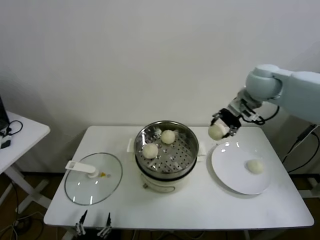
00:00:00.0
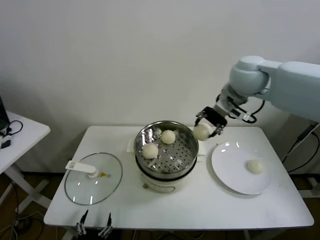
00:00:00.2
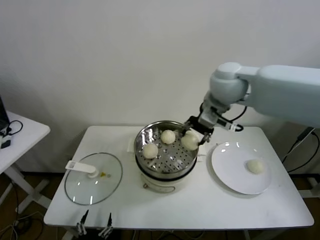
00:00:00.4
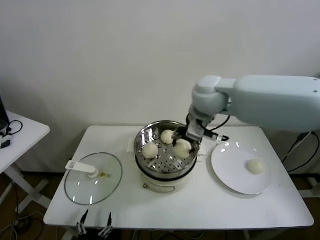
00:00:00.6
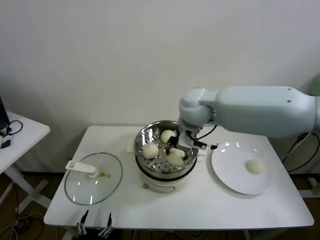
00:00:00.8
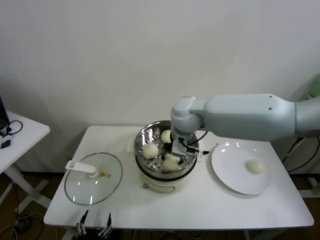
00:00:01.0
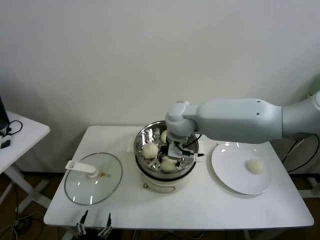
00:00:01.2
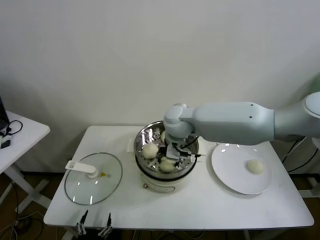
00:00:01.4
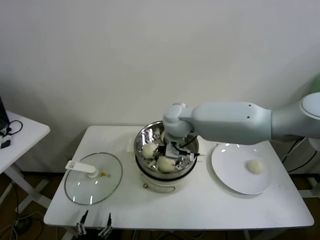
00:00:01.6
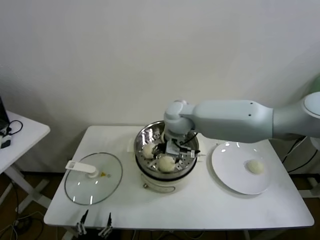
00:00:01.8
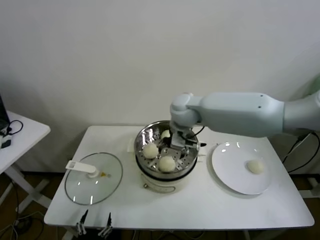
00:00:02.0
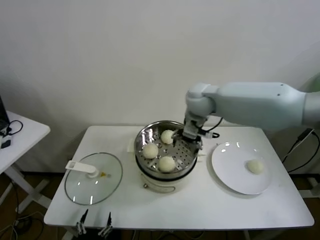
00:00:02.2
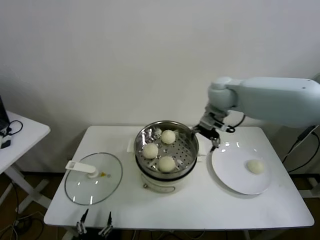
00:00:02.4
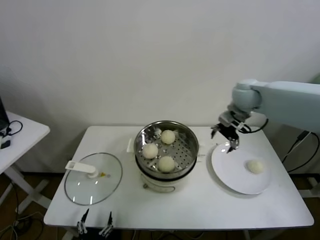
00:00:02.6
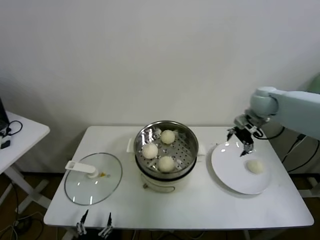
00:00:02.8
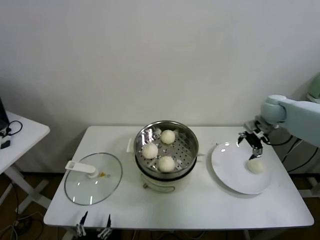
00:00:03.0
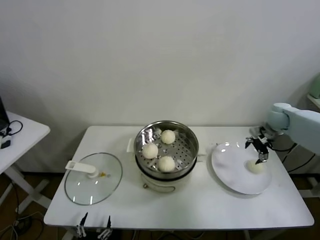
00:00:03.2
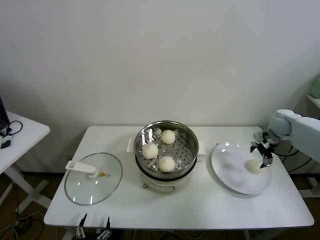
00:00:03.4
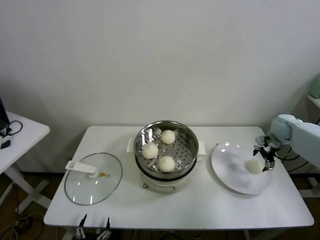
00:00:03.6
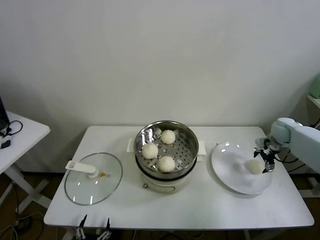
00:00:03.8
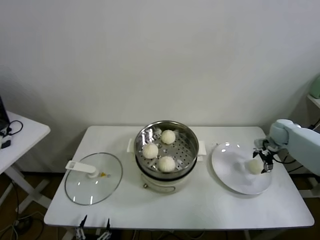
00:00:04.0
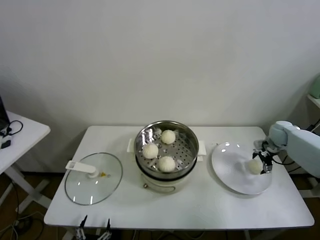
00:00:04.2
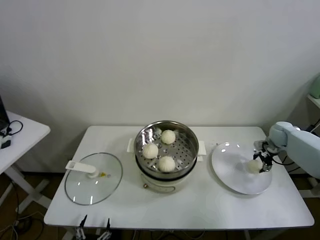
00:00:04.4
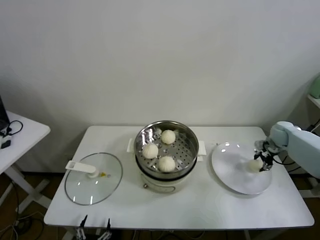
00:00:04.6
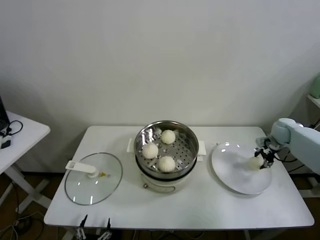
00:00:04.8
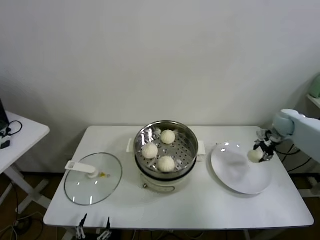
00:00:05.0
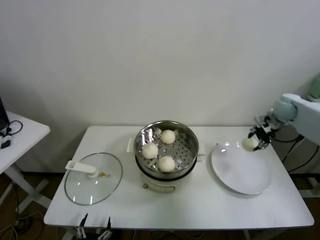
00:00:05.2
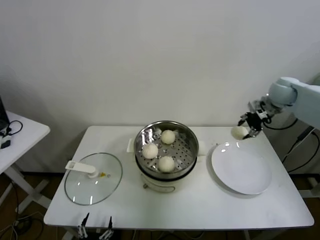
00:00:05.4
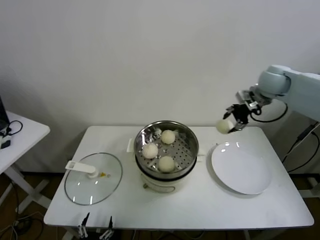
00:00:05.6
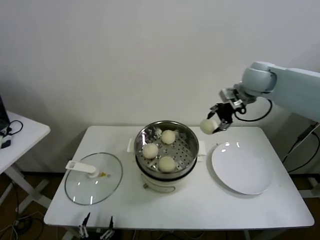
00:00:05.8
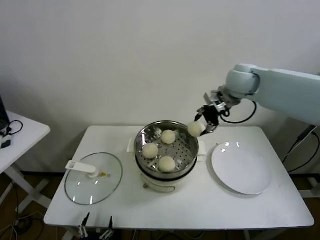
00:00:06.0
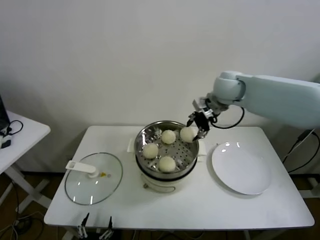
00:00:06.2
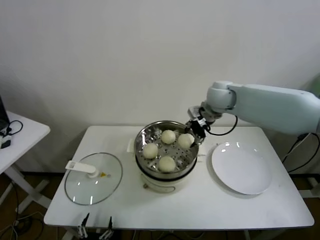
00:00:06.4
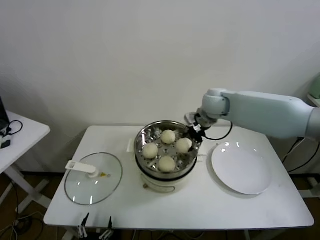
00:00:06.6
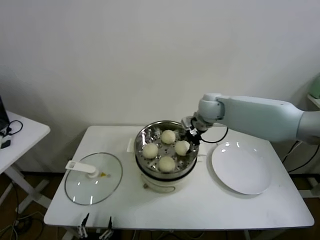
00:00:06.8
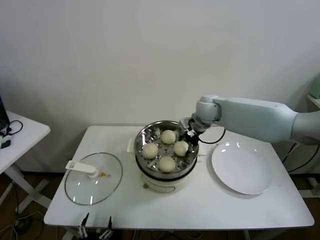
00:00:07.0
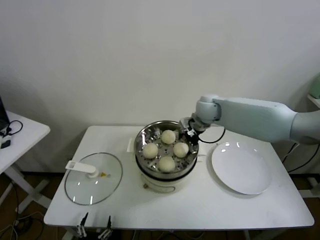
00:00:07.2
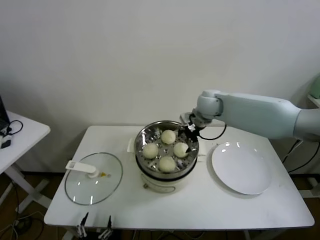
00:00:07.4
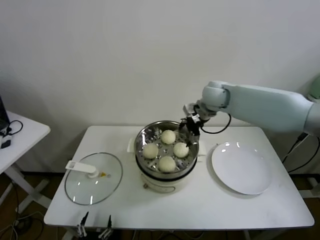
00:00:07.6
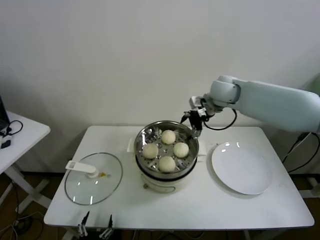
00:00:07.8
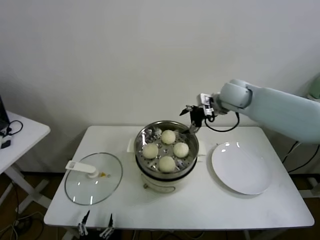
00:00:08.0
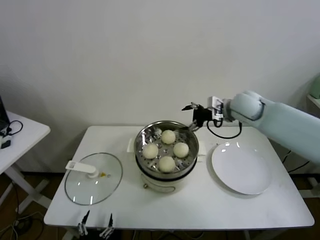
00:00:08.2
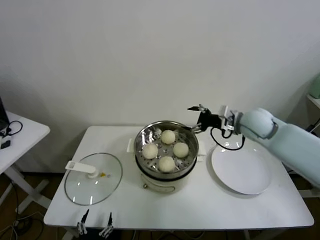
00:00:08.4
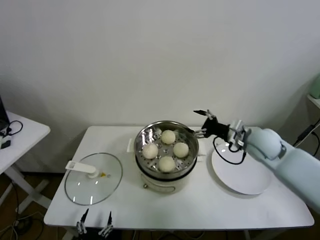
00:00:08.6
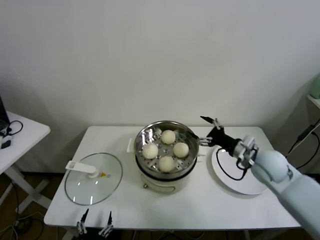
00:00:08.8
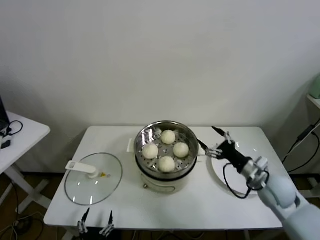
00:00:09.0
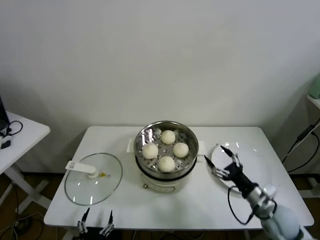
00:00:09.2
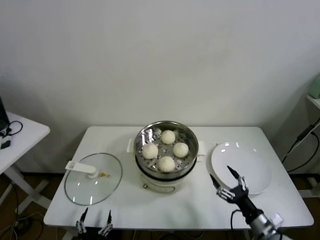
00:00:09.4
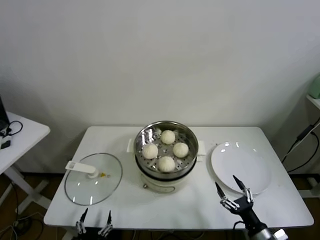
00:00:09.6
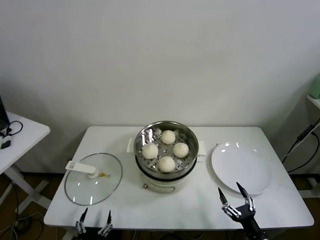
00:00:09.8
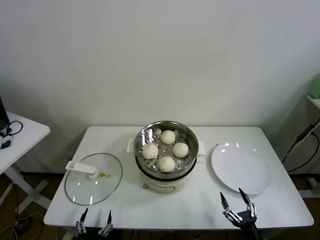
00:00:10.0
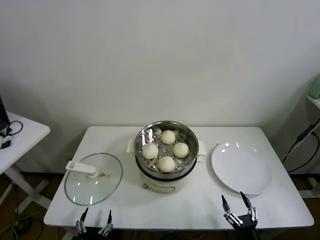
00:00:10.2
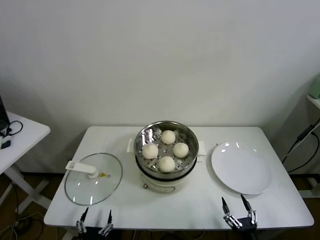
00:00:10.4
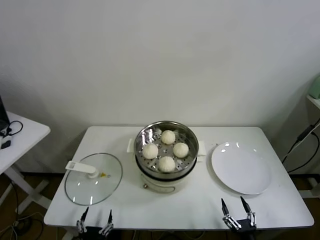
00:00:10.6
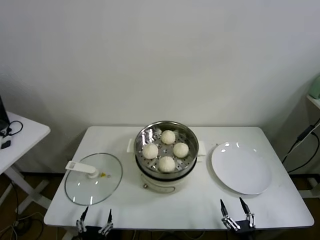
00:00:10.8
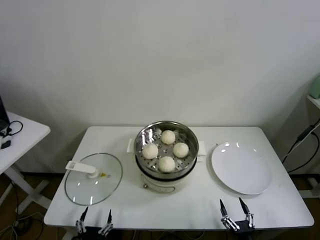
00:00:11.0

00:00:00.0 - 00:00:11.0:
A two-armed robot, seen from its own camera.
Task of the whole recording: take steamed baozi put them in steamer.
Step, 00:00:00.0 - 00:00:01.6: Place the baozi on the steamer with right gripper.
Step, 00:00:01.8 - 00:00:04.4: Grasp the baozi in the plate with right gripper.
Step, 00:00:04.6 - 00:00:07.4: Place the baozi on the steamer with right gripper.
00:00:00.0 - 00:00:01.6: The right gripper heads to the left and downward, covering some 25 cm, and opens its fingers.
00:00:01.6 - 00:00:03.2: The right gripper moves to the right, approximately 40 cm, and opens.
00:00:03.2 - 00:00:04.8: The right gripper shifts approximately 10 cm downward and to the right, and closes its fingers.
00:00:04.8 - 00:00:06.2: The right gripper moves to the left and upward, about 35 cm.
00:00:06.2 - 00:00:07.8: The right gripper moves approximately 10 cm downward and comes back, and opens up.
00:00:07.8 - 00:00:09.4: The right gripper travels backward, downward and to the right by approximately 50 cm.
00:00:09.4 - 00:00:11.0: The right gripper travels backward and downward by some 15 cm.
